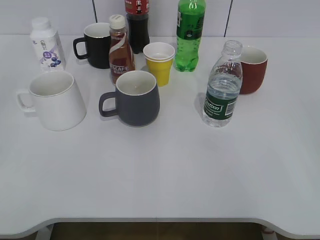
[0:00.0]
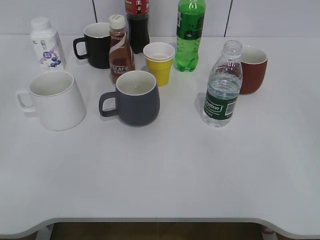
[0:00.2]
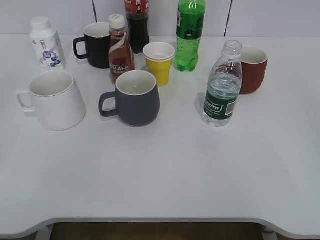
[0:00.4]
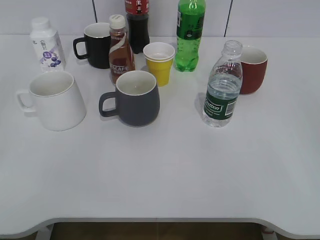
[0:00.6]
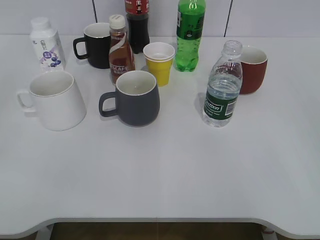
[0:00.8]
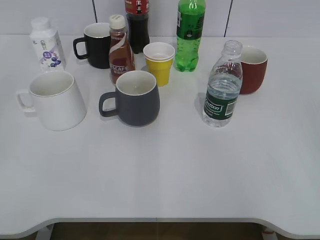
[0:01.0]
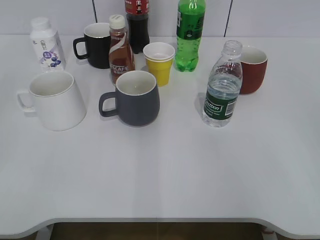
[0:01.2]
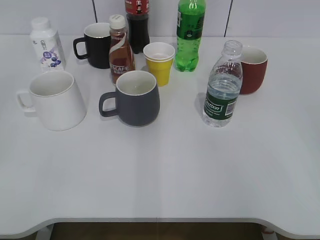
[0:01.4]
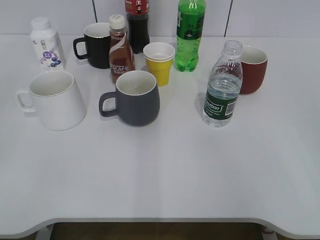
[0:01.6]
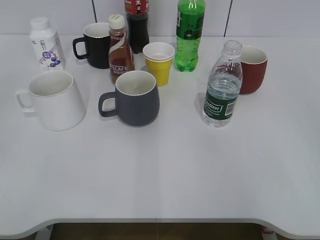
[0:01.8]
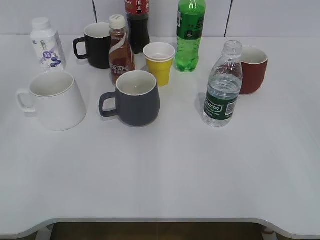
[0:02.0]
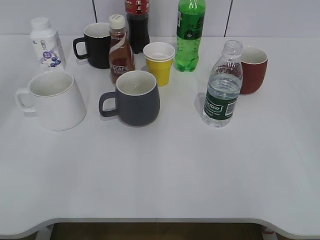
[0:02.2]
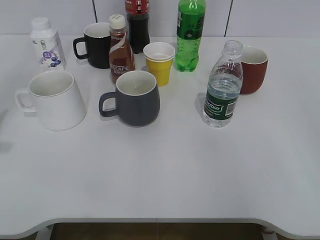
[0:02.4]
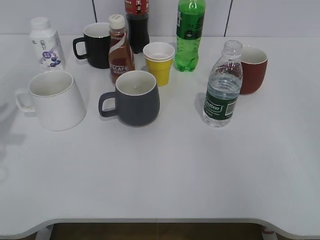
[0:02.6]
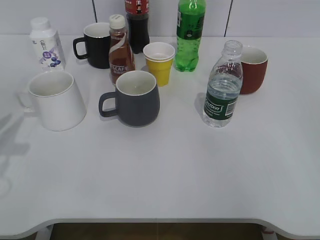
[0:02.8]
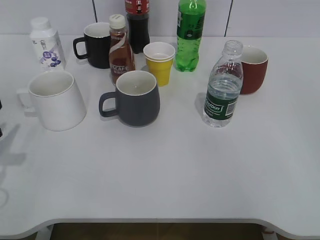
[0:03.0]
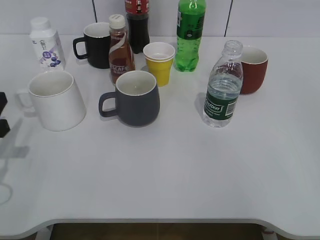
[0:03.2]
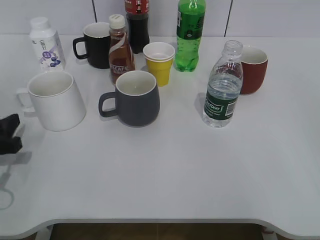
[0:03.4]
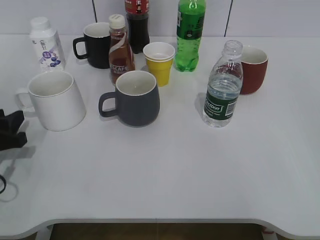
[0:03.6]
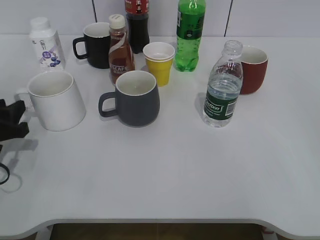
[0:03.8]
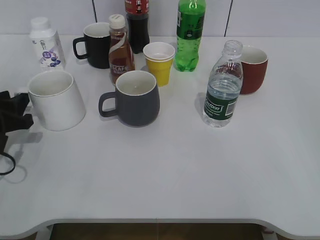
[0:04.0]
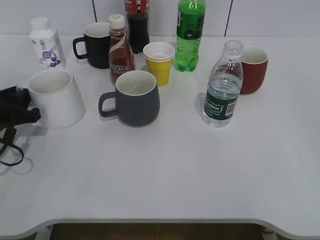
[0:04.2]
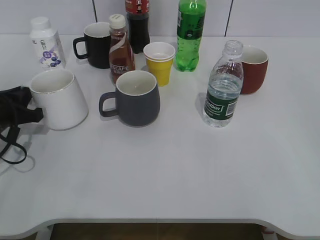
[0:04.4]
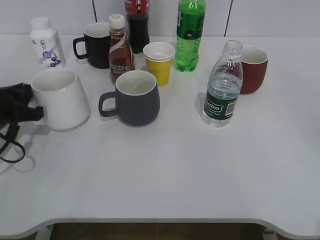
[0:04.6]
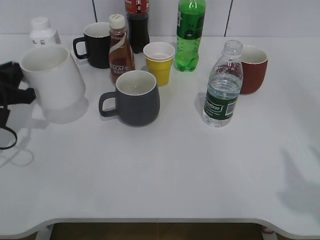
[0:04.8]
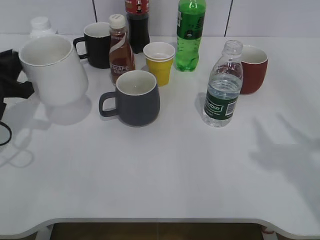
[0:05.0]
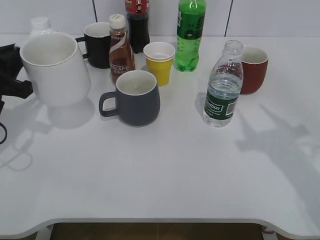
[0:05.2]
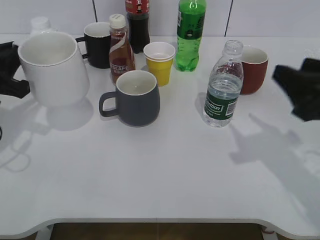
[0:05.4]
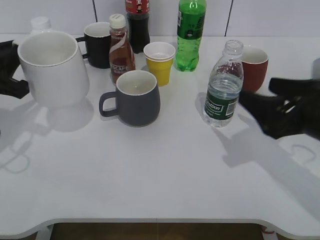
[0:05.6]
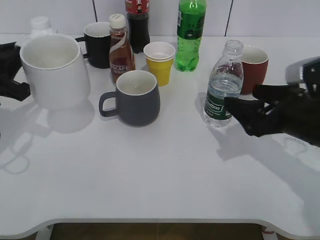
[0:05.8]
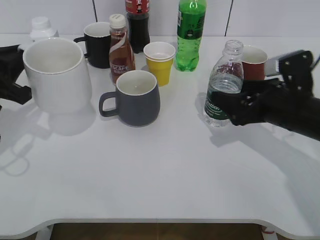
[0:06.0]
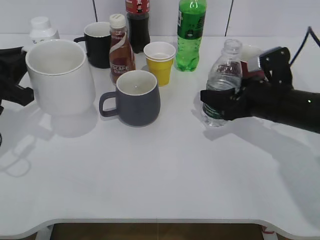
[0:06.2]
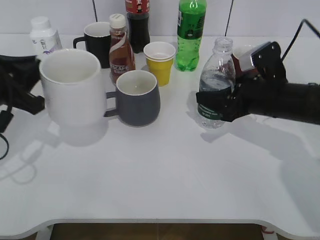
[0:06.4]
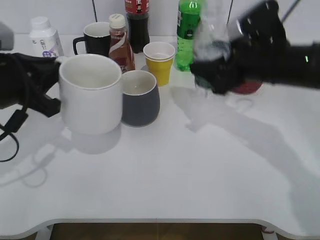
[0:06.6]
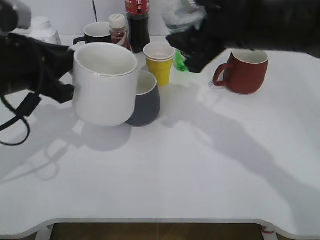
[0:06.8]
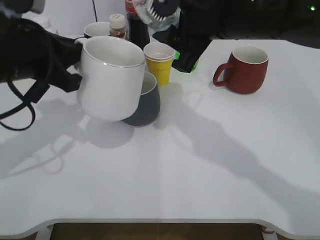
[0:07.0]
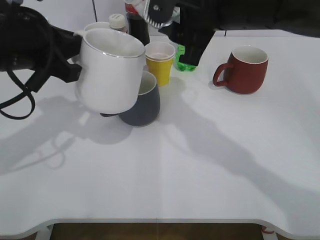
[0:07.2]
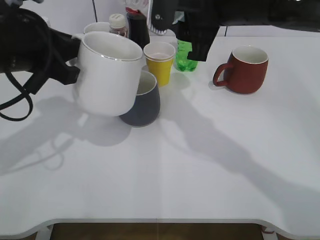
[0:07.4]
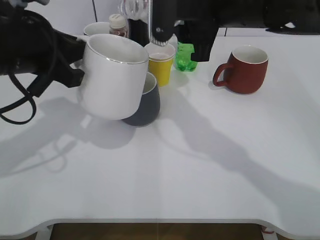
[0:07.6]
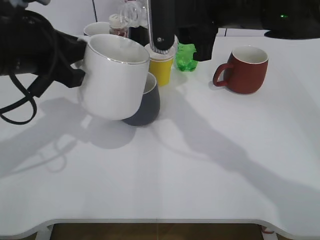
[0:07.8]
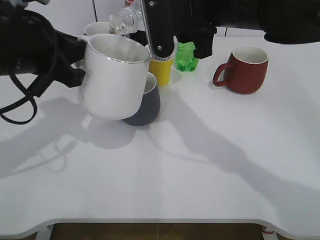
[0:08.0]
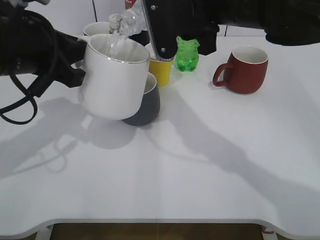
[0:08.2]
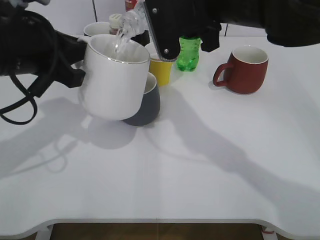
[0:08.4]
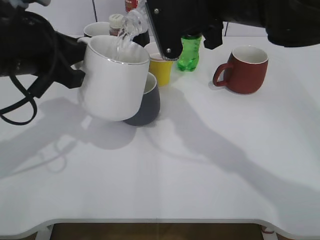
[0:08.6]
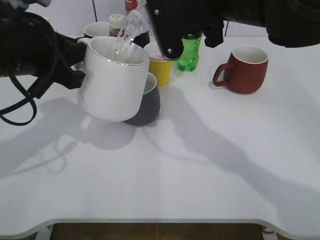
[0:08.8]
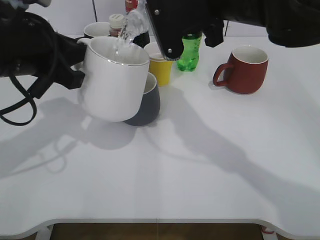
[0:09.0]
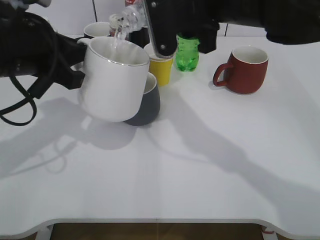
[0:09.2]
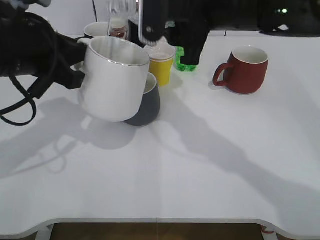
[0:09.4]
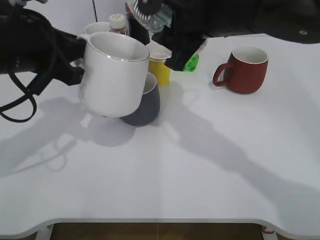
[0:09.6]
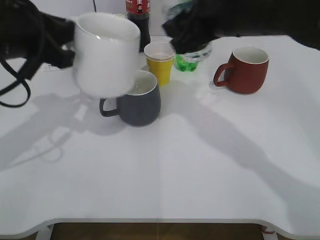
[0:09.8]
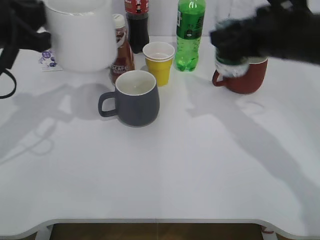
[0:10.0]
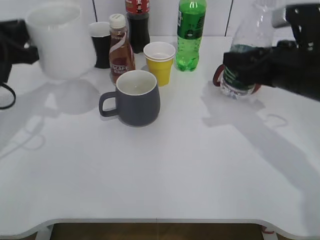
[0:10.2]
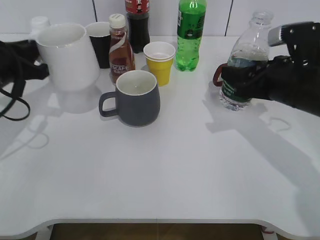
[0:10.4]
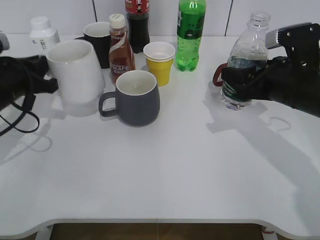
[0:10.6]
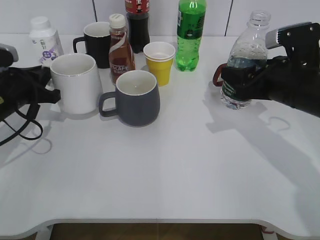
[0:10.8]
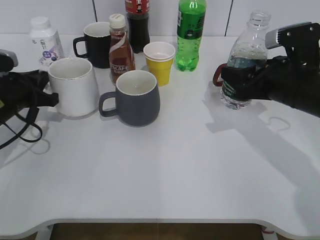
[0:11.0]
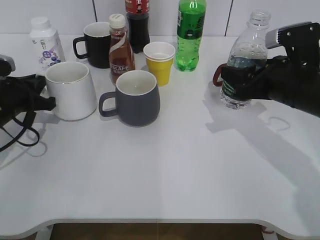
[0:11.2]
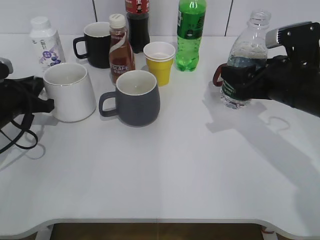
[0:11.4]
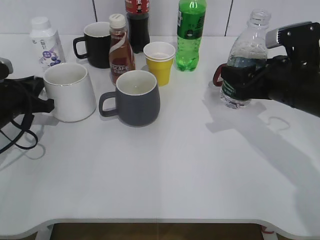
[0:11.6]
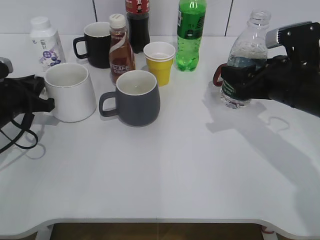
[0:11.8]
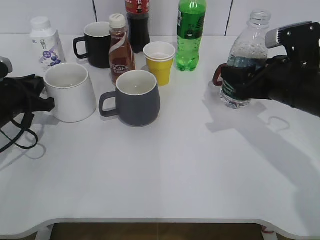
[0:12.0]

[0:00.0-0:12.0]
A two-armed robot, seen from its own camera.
Step, 1.8 to 4.4 s: Grasp the white cup with left gripper.
Step, 4.6 to 5.0 s: Lift the white cup with left gripper.
Step, 5.4 to 6.2 s: Grasp the bottle with water with right gripper.
Step, 6.4 to 9.4 s: Pour the water from bottle to cup with right gripper.
1.6 to 3.0 s: The left gripper is displaced forward and downward by roughly 20 cm.
3.0 to 4.4 s: The left gripper heads forward and downward, covering roughly 10 cm, and closes.
4.4 to 6.0 s: The right gripper heads forward and downward, covering approximately 30 cm, and opens its fingers. Meanwhile the left gripper moves upward, approximately 10 cm.
6.0 to 7.6 s: The right gripper goes some 20 cm to the left and upward, and closes. Meanwhile the left gripper shifts roughly 10 cm to the right and upward.
9.0 to 10.4 s: The right gripper travels to the right and downward by about 20 cm. Meanwhile the left gripper moves to the left, downward and forward, about 15 cm.
10.4 to 12.0 s: The left gripper goes about 5 cm downward.

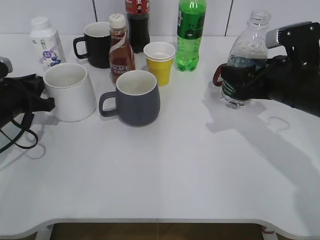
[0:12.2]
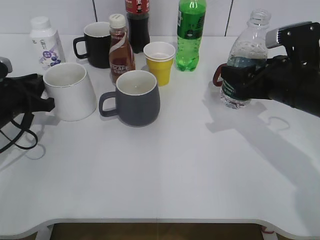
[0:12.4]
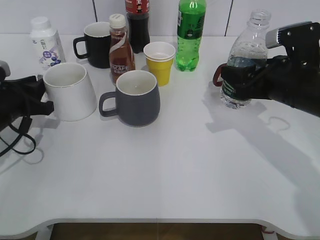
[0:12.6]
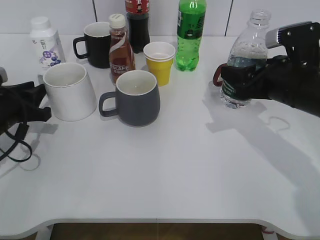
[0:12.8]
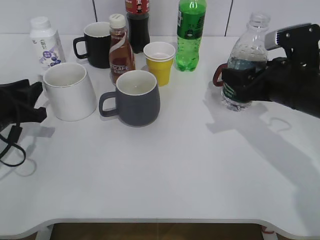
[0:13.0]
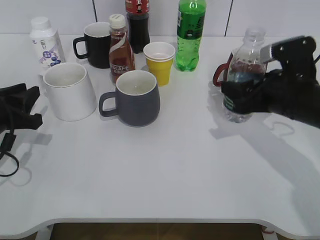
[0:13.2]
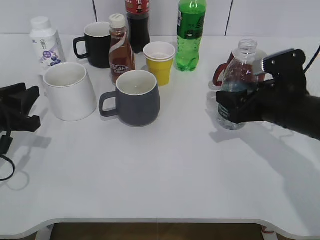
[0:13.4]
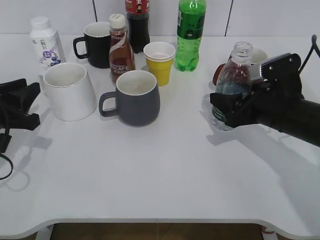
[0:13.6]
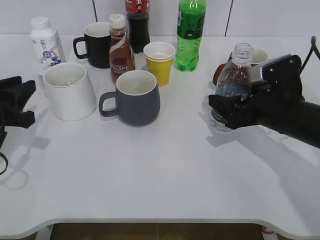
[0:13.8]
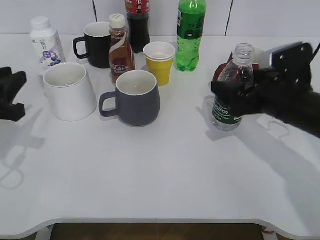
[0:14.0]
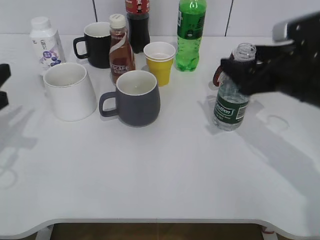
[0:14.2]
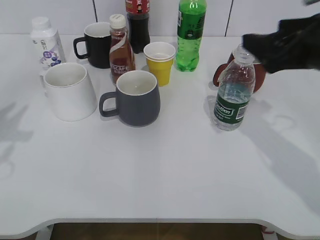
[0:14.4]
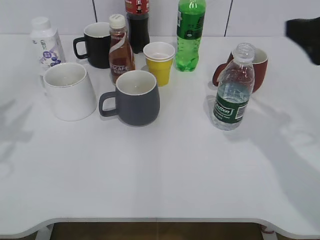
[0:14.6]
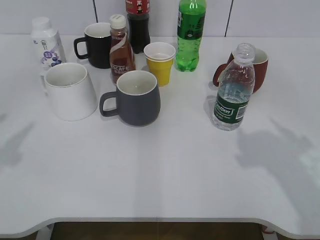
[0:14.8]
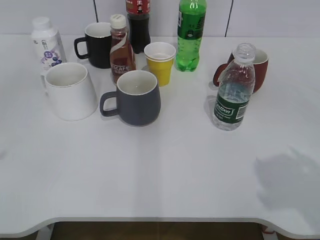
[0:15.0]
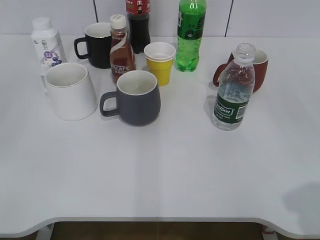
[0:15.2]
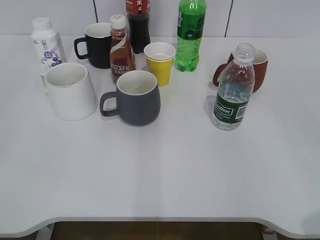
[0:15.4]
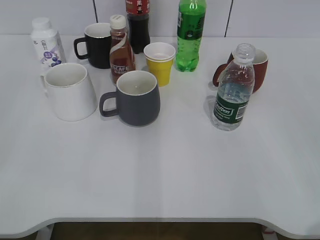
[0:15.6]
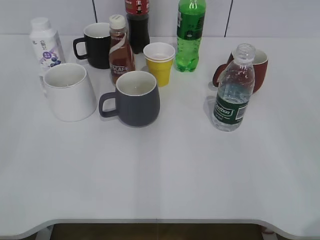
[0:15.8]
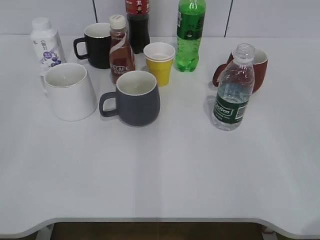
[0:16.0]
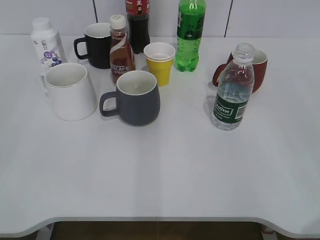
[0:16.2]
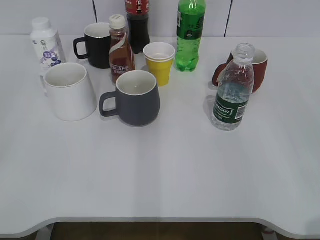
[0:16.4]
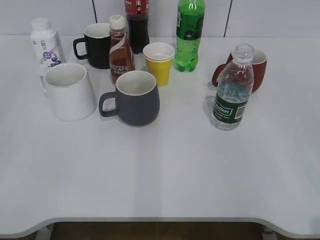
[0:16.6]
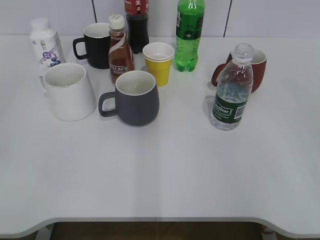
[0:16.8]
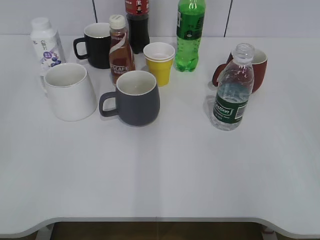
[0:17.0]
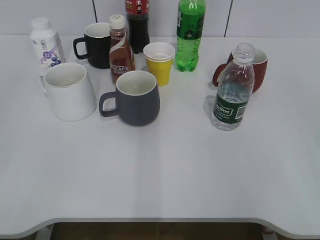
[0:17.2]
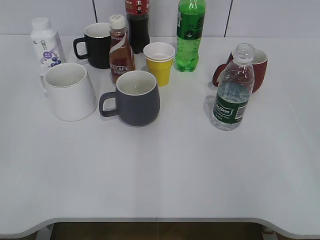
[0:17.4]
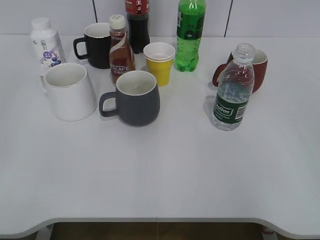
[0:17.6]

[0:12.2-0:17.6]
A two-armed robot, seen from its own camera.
Step, 12.4 to 14.0 s: Place the water bottle on the table with right gripper.
12.2 to 13.6 s: The left gripper shifts about 5 cm backward.
13.6 to 15.0 s: The two grippers go about 25 cm upward and backward. The right gripper opens. Meanwhile the left gripper opens up.
15.0 to 16.2 s: The right gripper is displaced backward by some 10 cm.

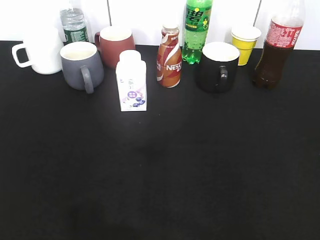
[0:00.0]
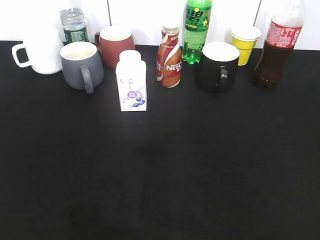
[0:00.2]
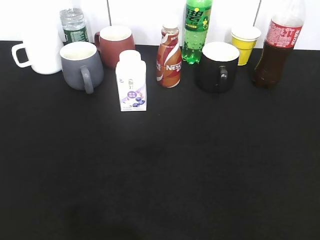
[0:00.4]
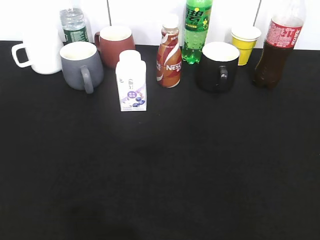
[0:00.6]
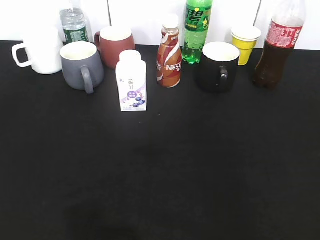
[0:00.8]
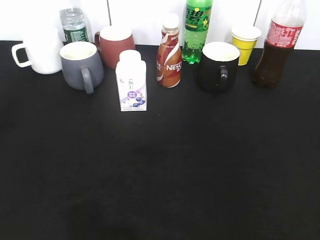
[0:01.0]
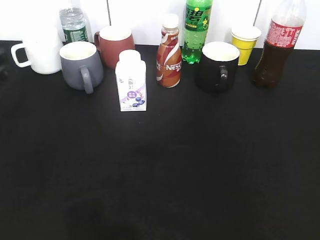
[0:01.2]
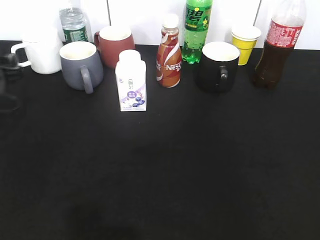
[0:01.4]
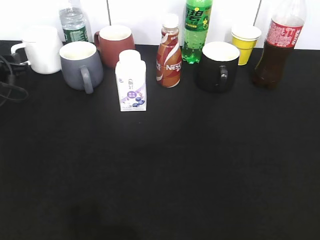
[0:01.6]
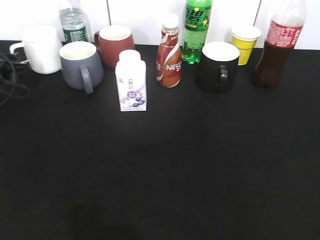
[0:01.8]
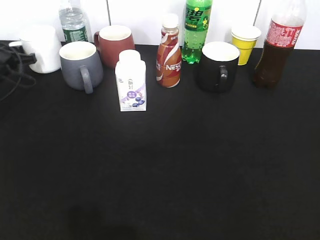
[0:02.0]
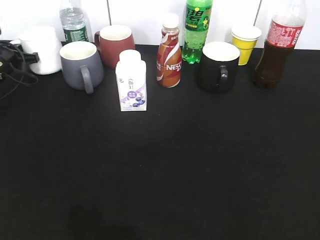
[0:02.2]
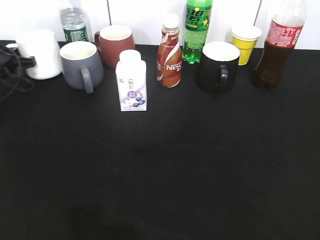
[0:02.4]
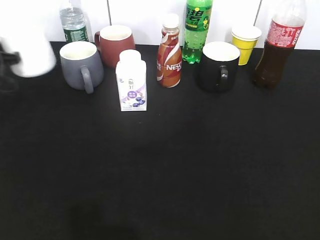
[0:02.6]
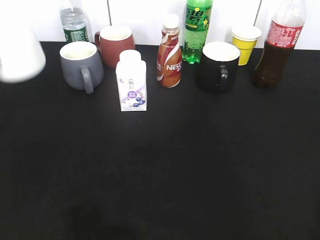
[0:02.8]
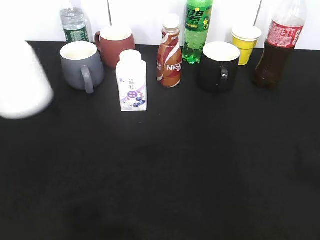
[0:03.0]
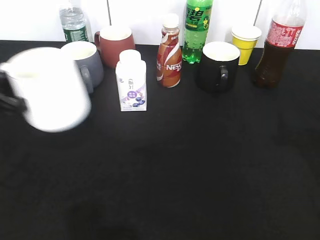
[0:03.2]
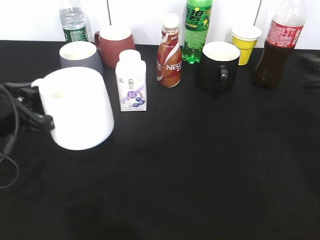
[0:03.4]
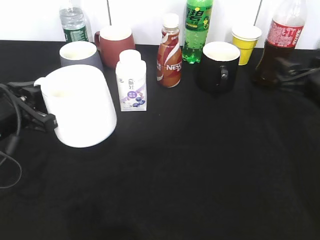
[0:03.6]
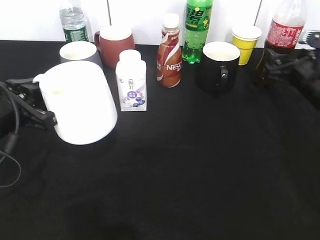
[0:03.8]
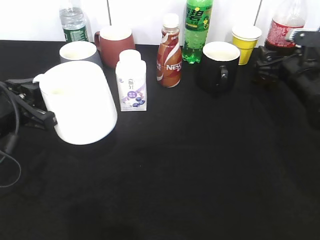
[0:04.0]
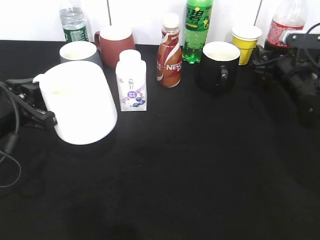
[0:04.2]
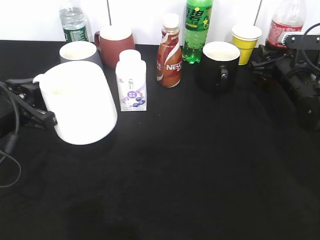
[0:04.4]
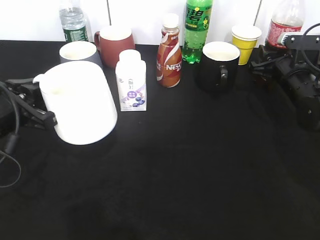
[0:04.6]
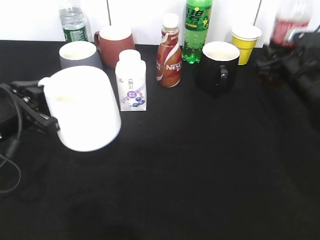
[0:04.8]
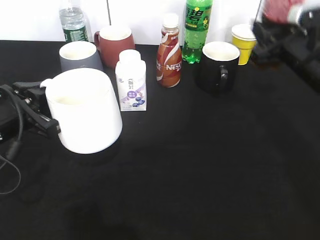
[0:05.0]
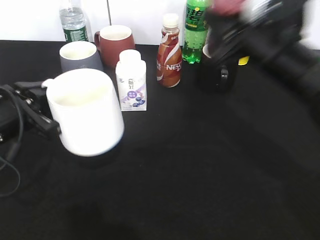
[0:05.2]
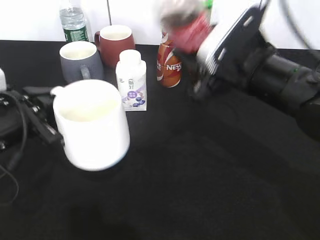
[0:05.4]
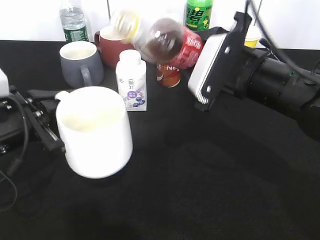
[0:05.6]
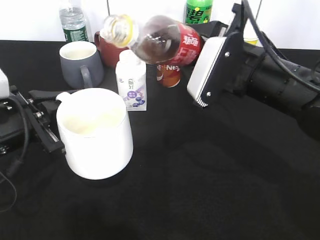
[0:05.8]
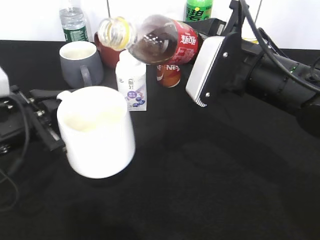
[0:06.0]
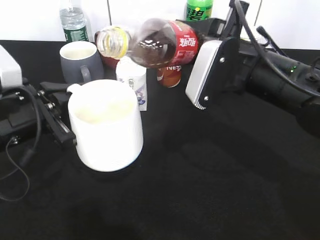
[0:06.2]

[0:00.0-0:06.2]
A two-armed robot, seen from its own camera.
Step, 0.0 to 2.2 s: Grasp the white cup with left gripper.
Step, 2.4 to 3.4 s: Lift the white cup with left gripper.
Step, 3.6 to 4.6 s: Grasp the bottle with cola with right gripper.
0.0 to 1.6 s: The left gripper moves forward, roughly 40 cm.
1.6 to 3.2 s: The left gripper travels backward, to the right and upward by roughly 20 cm, and closes its fingers.
3.2 to 4.6 s: The right gripper shifts about 25 cm forward and downward, and closes its fingers.
4.6 to 6.2 s: The right gripper is displaced to the left, backward and upward by roughly 20 cm.
